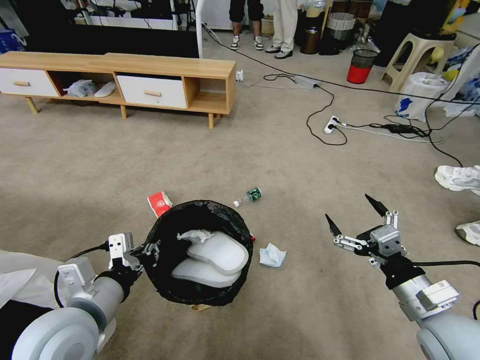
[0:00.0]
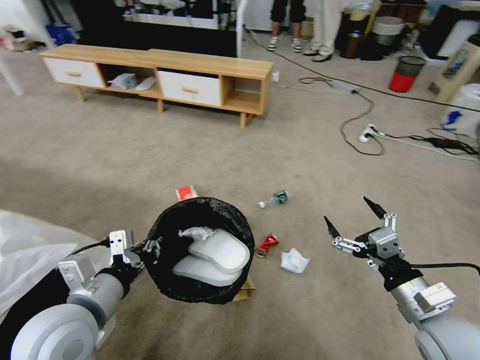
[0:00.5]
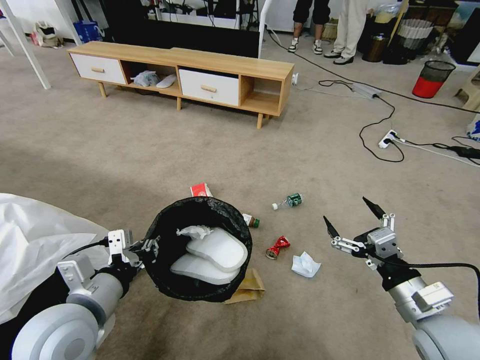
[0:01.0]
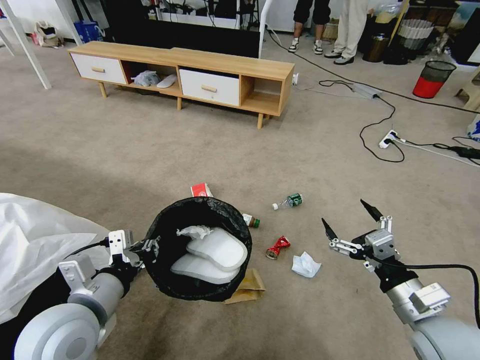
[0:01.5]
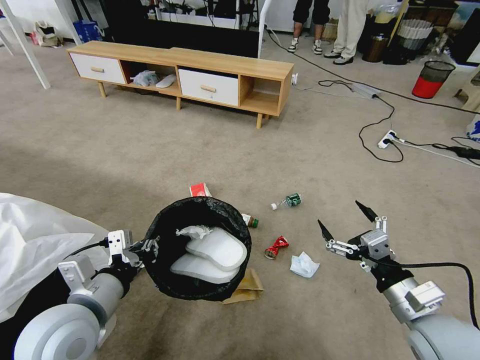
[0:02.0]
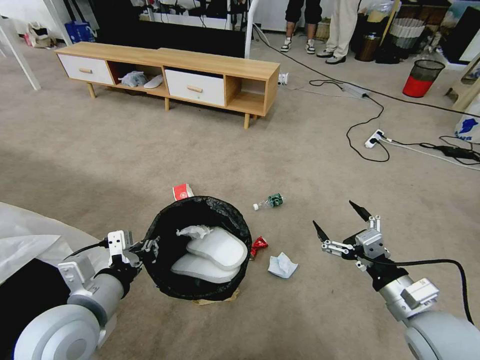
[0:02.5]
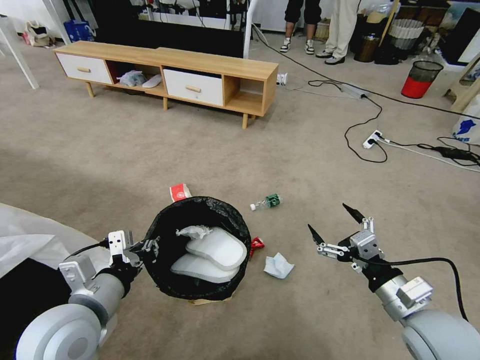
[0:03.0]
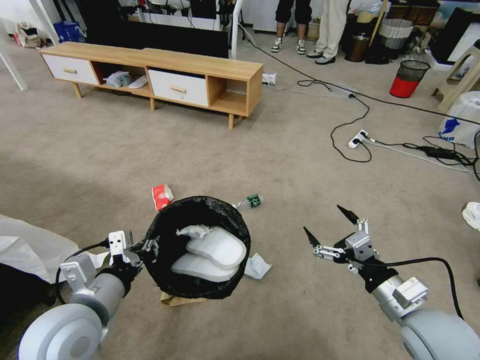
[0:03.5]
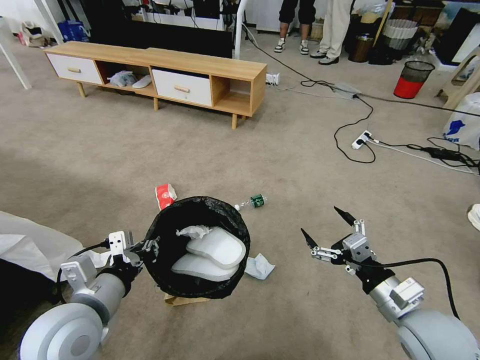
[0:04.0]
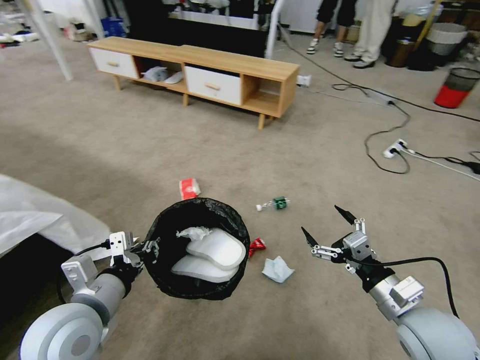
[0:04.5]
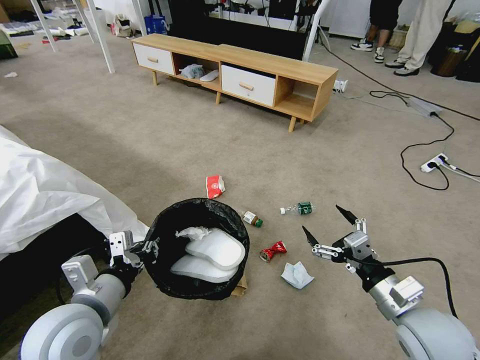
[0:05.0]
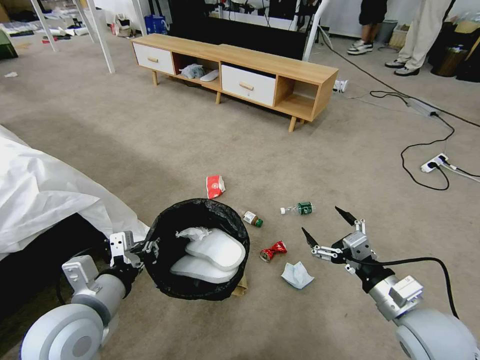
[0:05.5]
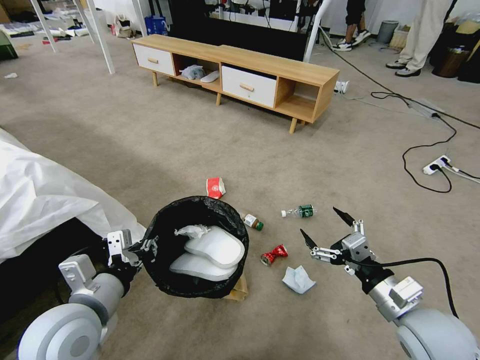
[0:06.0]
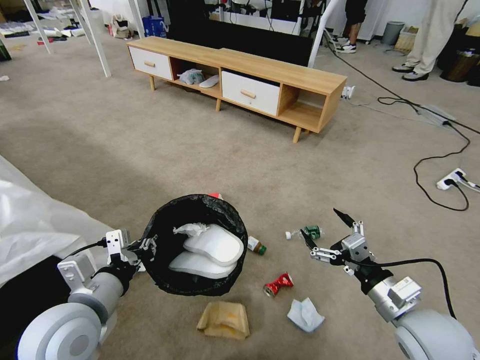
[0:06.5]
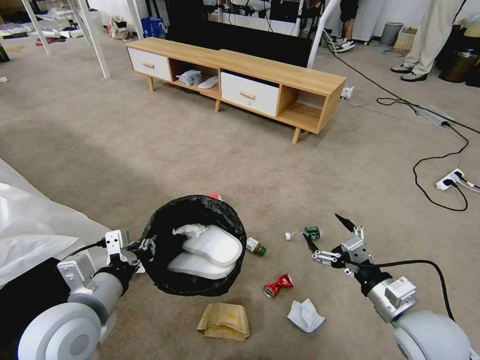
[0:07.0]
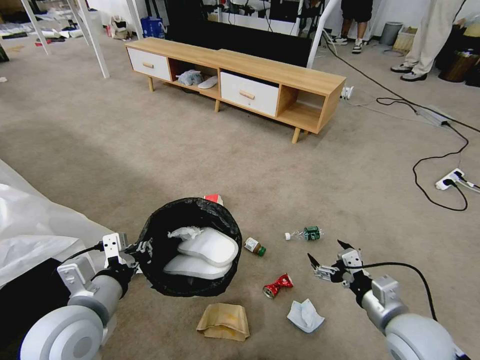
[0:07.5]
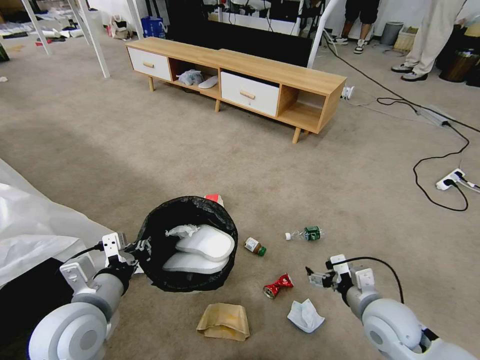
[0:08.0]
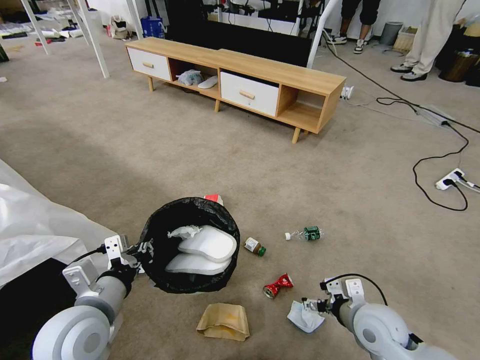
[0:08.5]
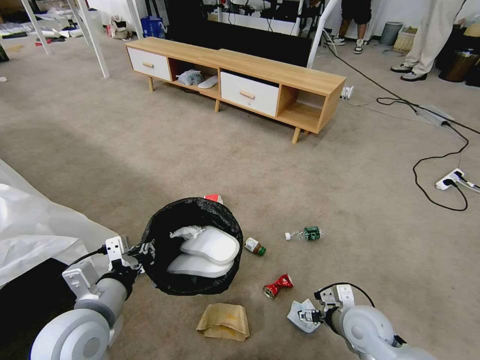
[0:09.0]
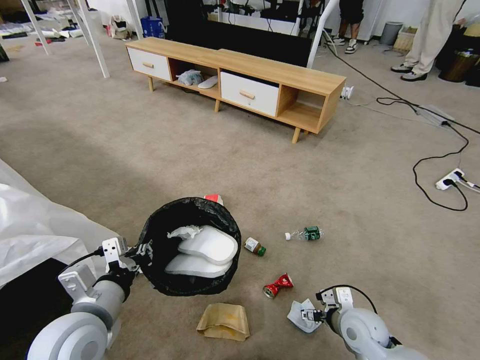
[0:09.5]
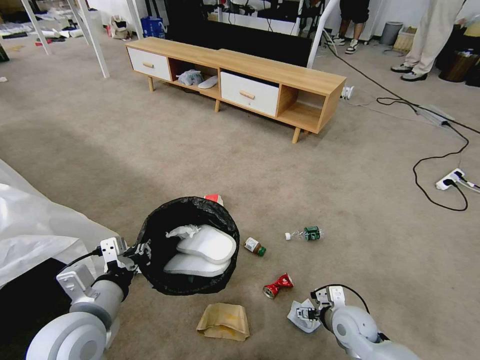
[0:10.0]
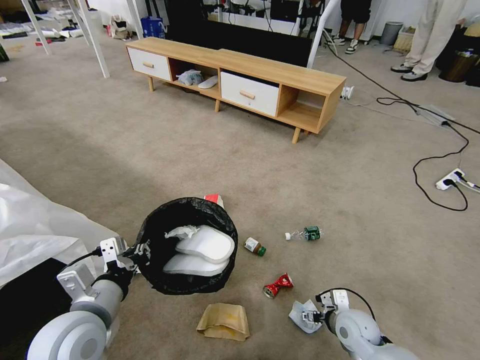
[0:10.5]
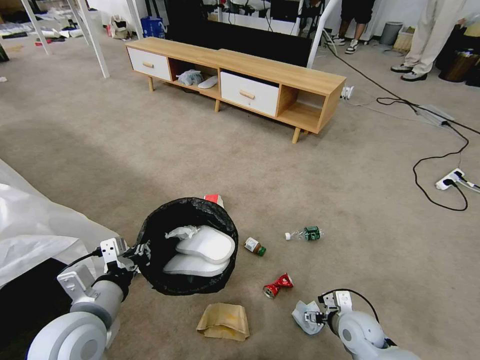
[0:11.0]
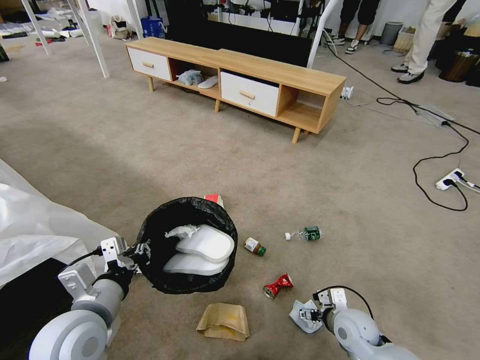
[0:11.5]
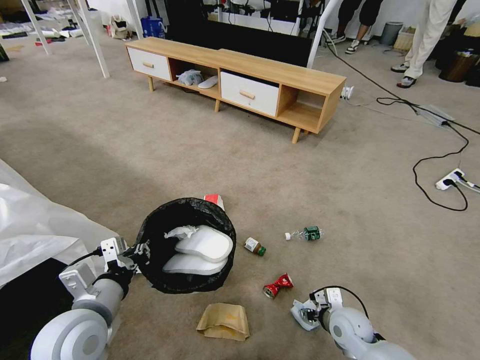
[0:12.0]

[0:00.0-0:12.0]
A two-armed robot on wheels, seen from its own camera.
Task of the whole recording: Pick up the trash bin and place the garbage on the floor into it.
0:06.0 to 0:08.0: The right gripper travels downward by about 5 cm.
0:08.0 to 0:10.0: The right gripper moves downward, approximately 10 cm.
0:10.0 to 0:12.0: The right gripper closes its fingers.

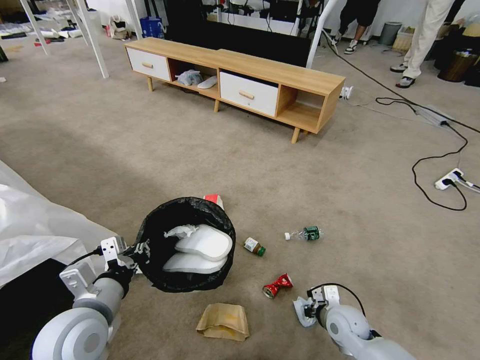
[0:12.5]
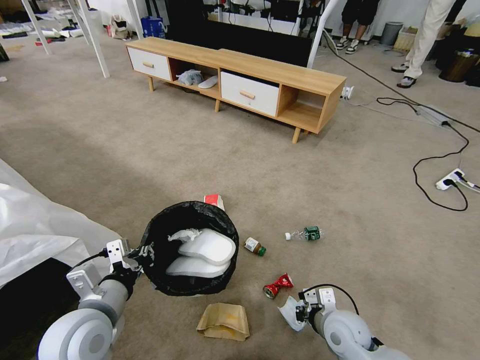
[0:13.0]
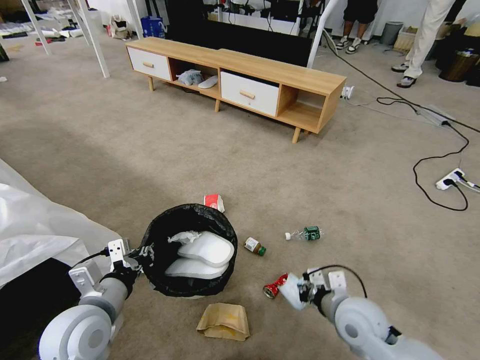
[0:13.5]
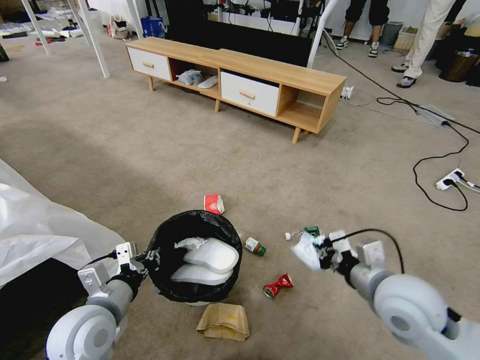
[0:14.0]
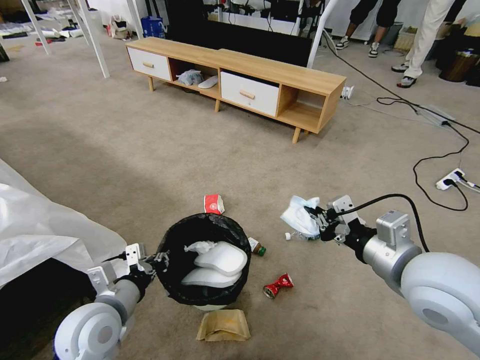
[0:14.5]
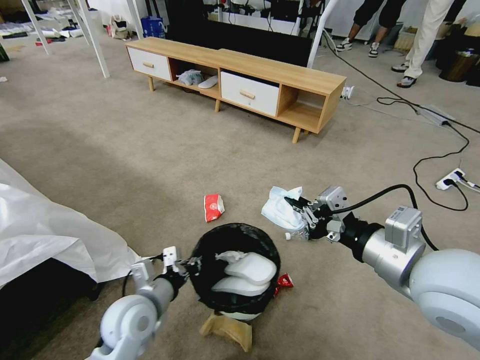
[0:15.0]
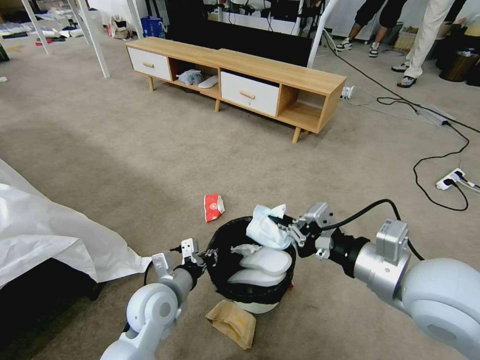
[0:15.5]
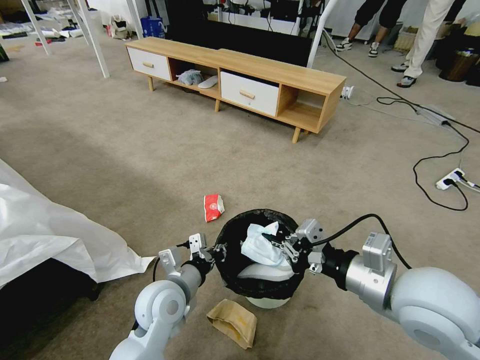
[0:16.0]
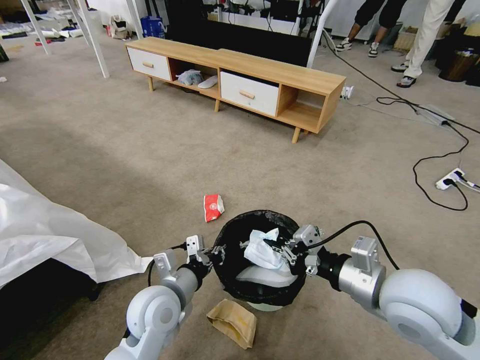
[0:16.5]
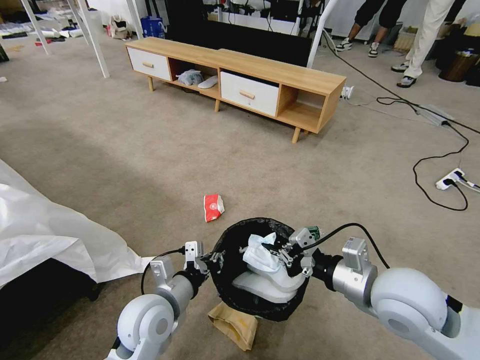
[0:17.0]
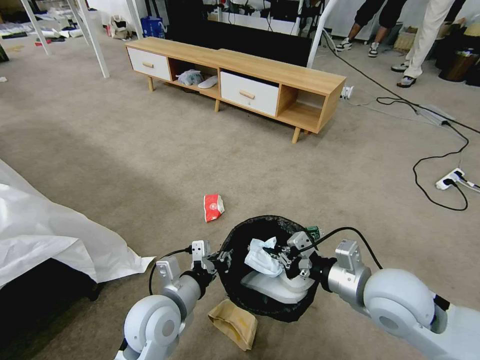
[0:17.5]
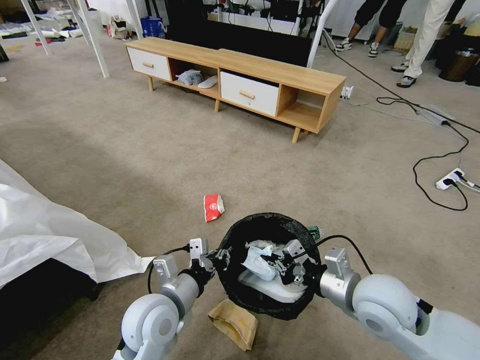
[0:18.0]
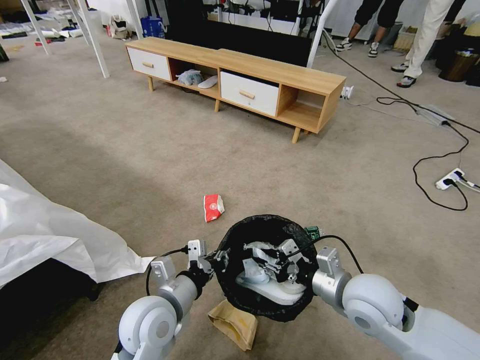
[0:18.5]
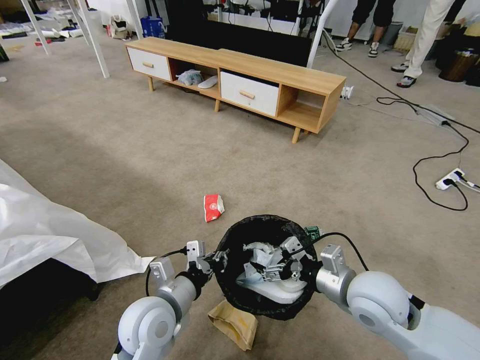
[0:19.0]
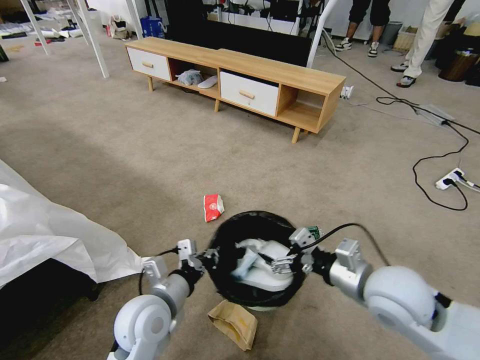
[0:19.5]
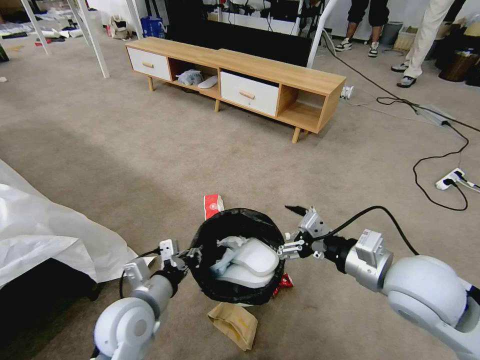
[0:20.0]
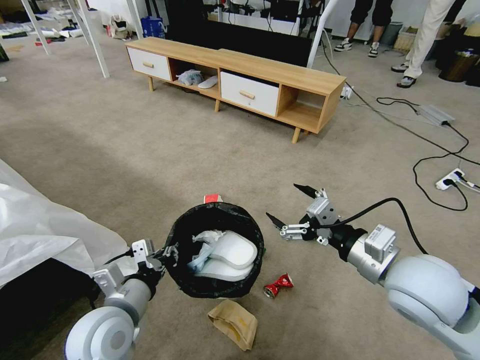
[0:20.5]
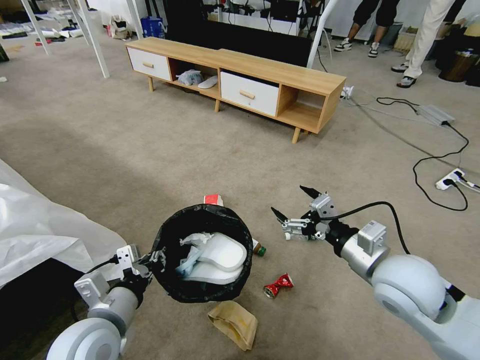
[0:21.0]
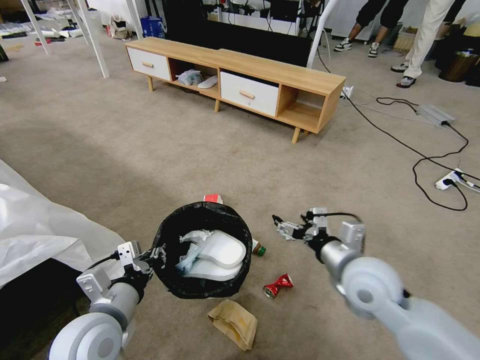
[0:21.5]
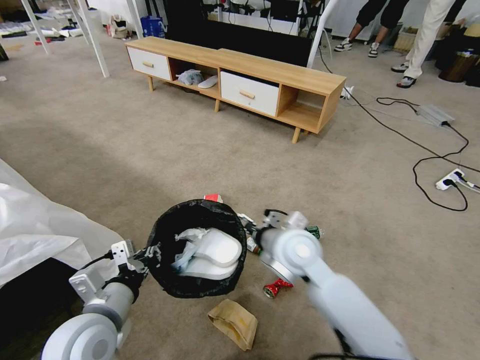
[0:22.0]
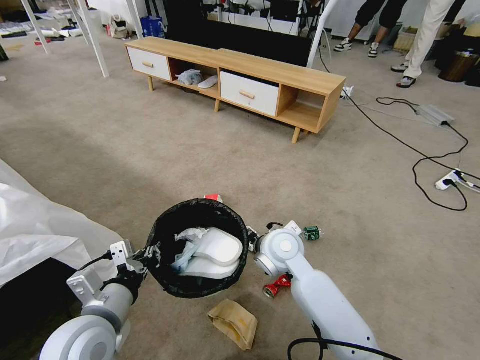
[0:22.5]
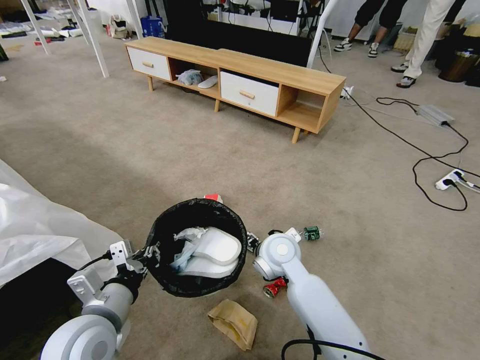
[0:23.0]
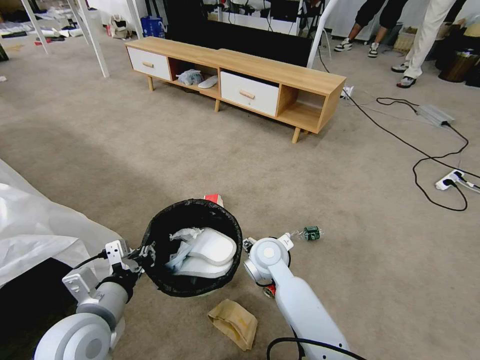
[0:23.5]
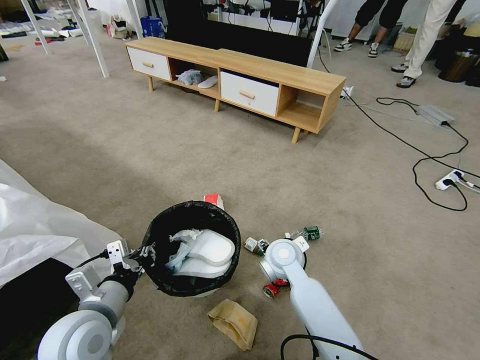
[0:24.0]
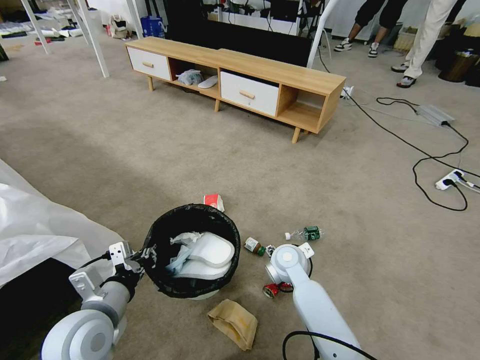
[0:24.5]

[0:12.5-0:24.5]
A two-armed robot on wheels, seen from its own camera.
Task of the whole recording: Pick up the trash bin and place the garbage on the floor into it.
0:12.5 to 0:14.5: The right gripper goes some 35 cm upward.
0:14.5 to 0:16.5: The left gripper goes roughly 10 cm to the right.
0:16.5 to 0:18.5: The right gripper shifts approximately 10 cm downward, and opens its fingers.
0:18.5 to 0:20.5: The right gripper heads upward, covering some 10 cm, and opens its fingers. The left gripper goes approximately 5 cm to the left.
0:20.5 to 0:22.5: The right gripper is displaced to the left, forward and downward by approximately 25 cm.
0:22.5 to 0:24.5: The right gripper travels downward by about 10 cm.

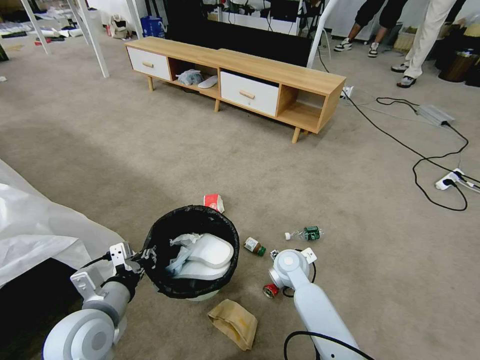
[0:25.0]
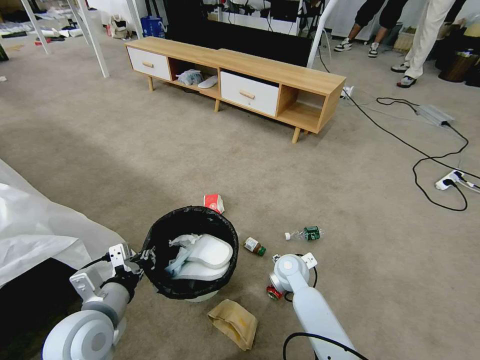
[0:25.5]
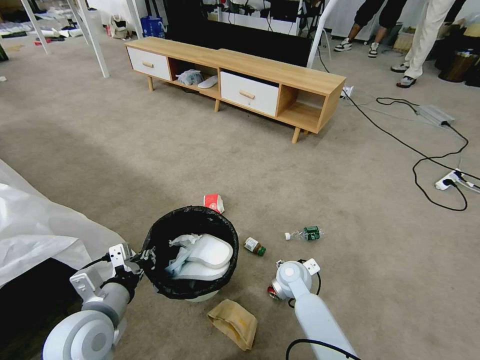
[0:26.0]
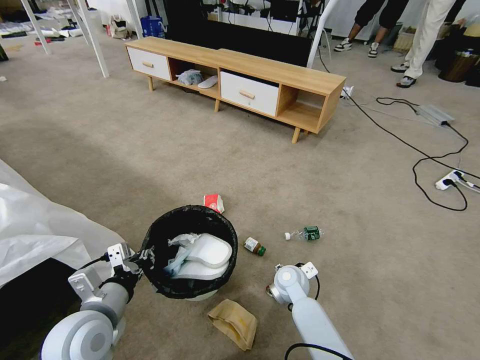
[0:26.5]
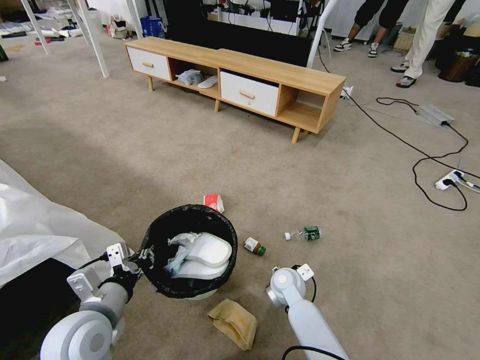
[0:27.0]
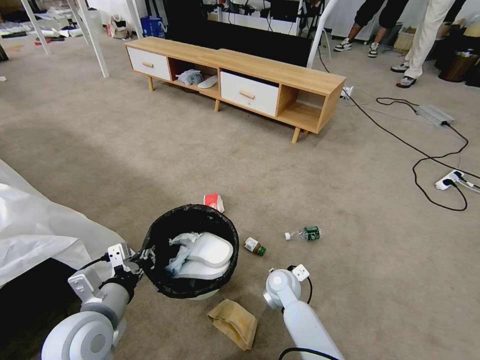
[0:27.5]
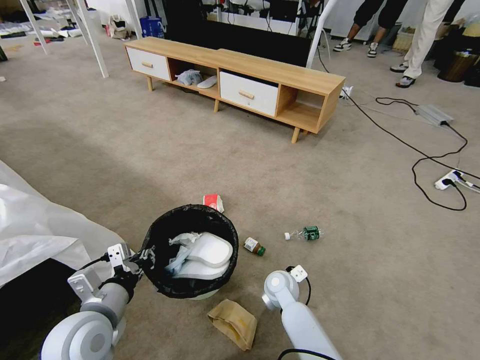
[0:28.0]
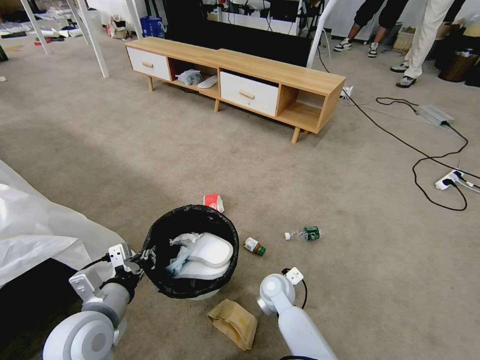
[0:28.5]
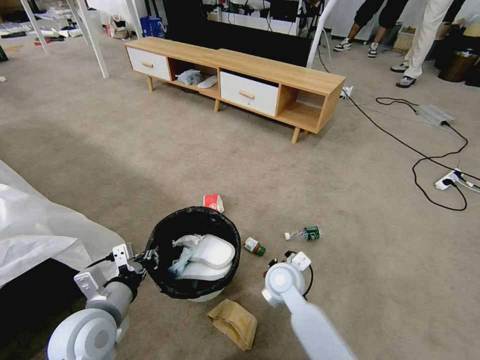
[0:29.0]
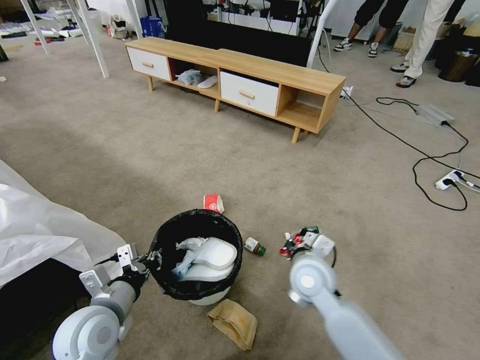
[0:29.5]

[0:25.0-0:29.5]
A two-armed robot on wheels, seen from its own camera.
Task of the whole recording: Pick up the trash bin and place the garbage on the floor into it.
0:25.0 to 0:27.0: The right gripper heads downward, covering roughly 5 cm.
0:27.0 to 0:29.5: The right gripper moves upward, some 15 cm, and closes up.
